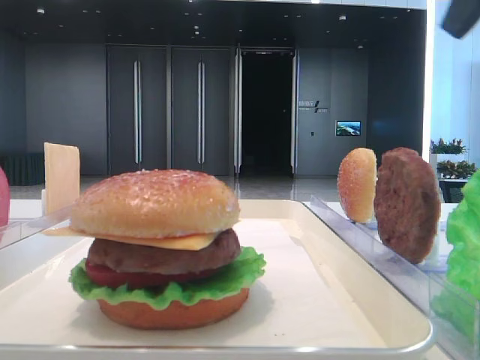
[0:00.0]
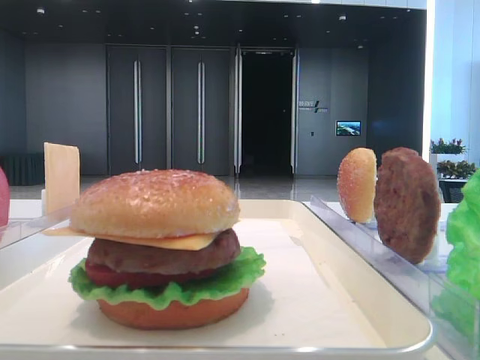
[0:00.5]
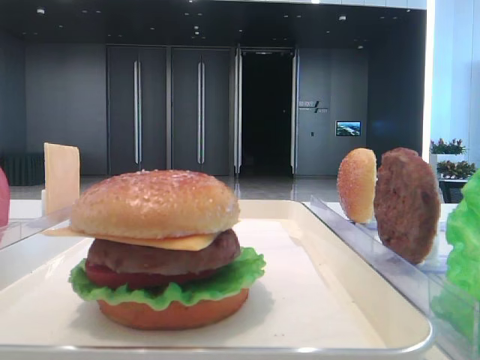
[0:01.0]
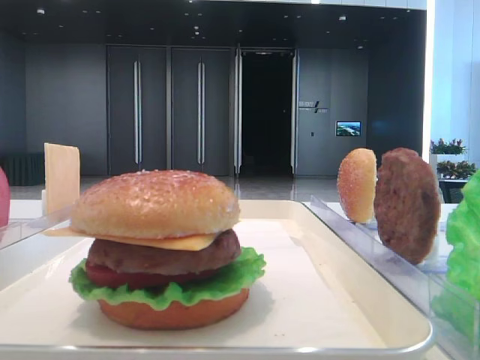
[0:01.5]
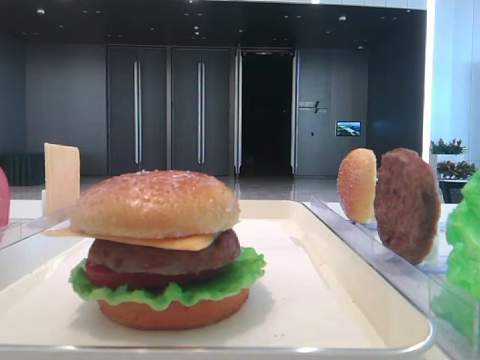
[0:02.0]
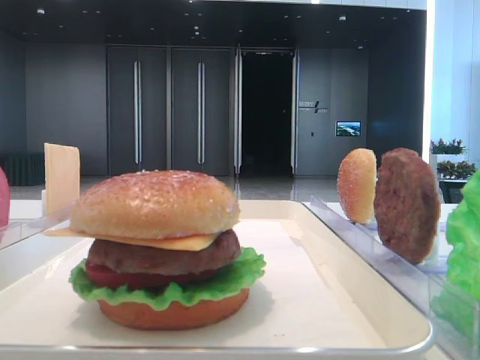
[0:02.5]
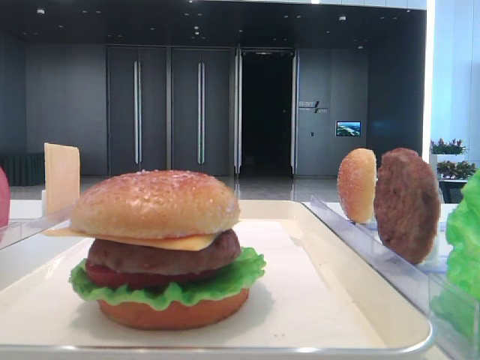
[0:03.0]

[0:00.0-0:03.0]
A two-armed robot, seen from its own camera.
0:00.0 to 0:01.5: The right gripper moves backward, about 20 cm.

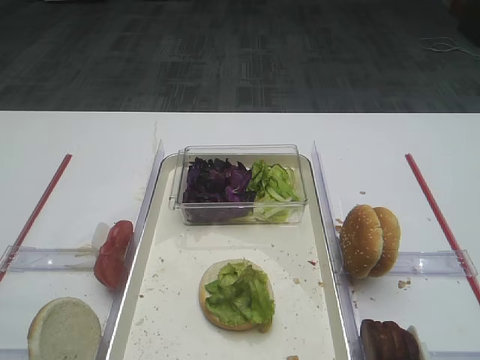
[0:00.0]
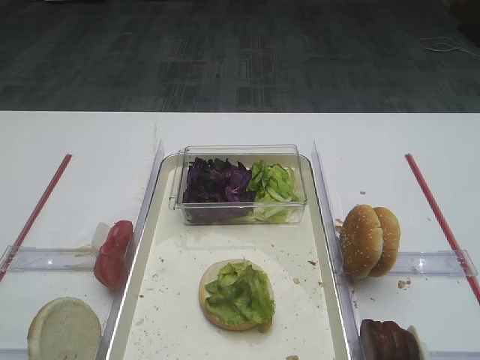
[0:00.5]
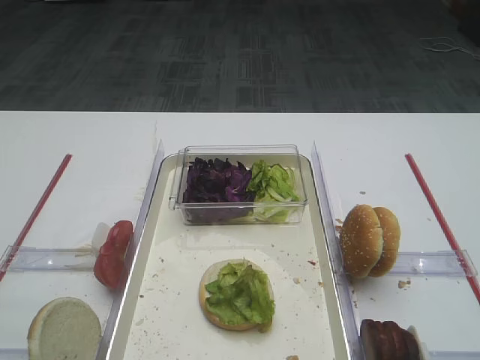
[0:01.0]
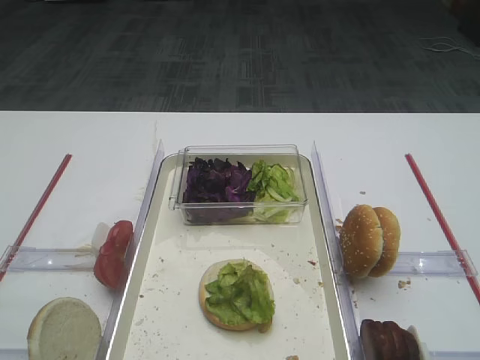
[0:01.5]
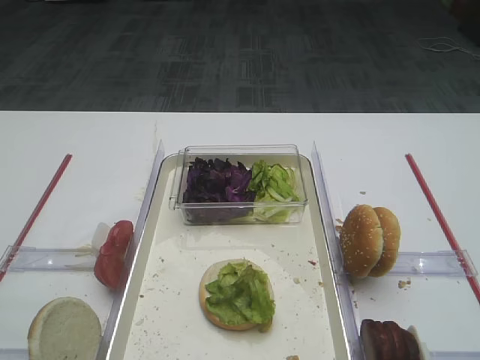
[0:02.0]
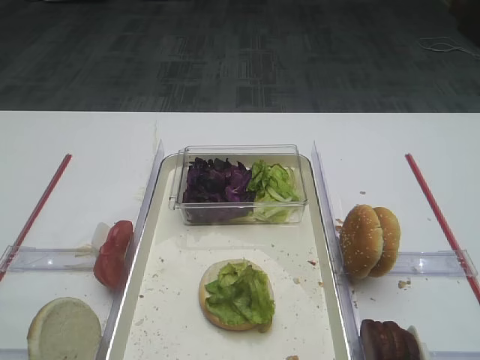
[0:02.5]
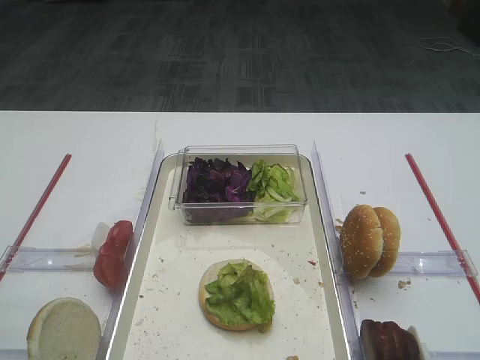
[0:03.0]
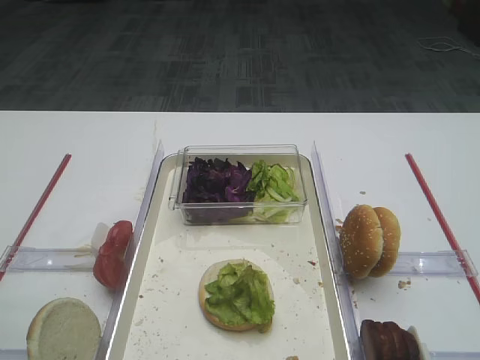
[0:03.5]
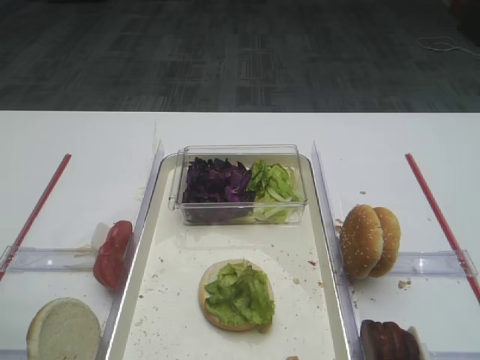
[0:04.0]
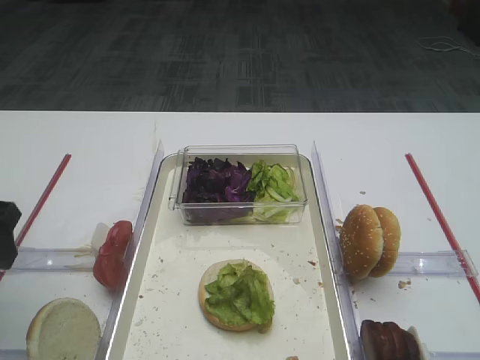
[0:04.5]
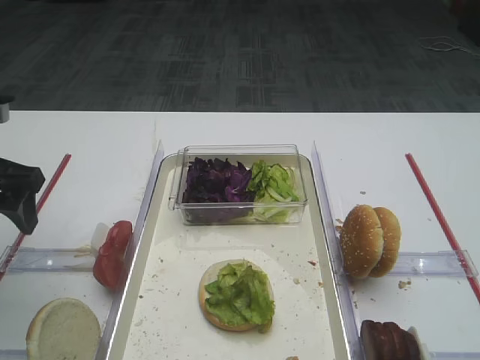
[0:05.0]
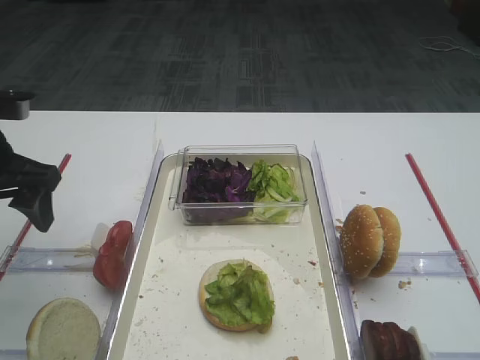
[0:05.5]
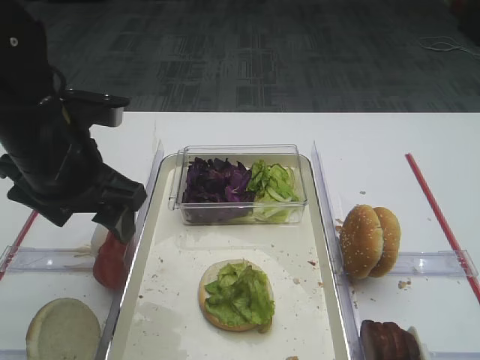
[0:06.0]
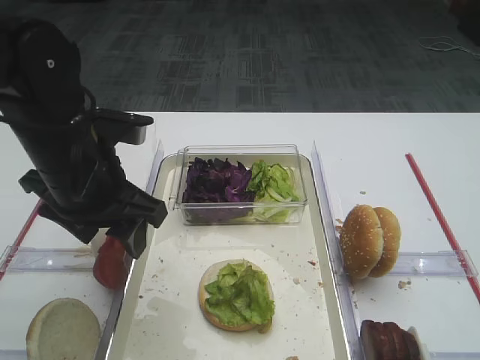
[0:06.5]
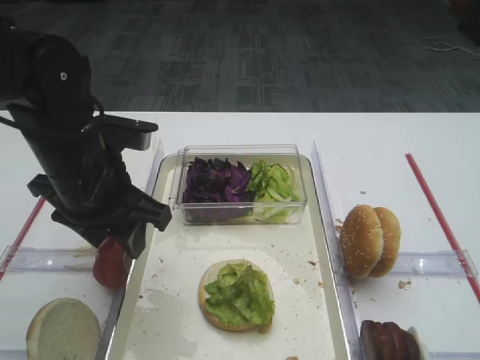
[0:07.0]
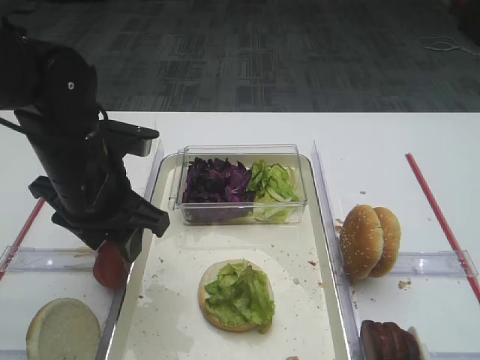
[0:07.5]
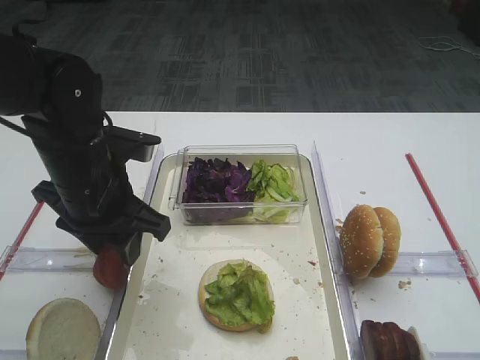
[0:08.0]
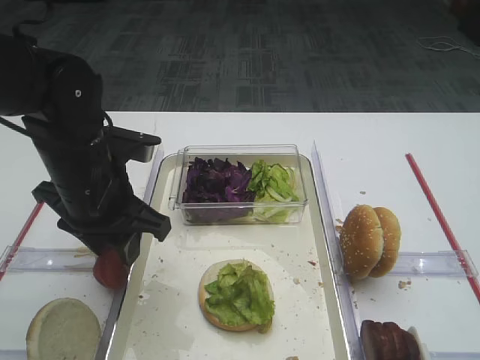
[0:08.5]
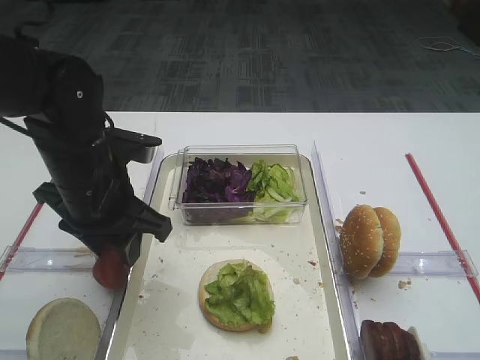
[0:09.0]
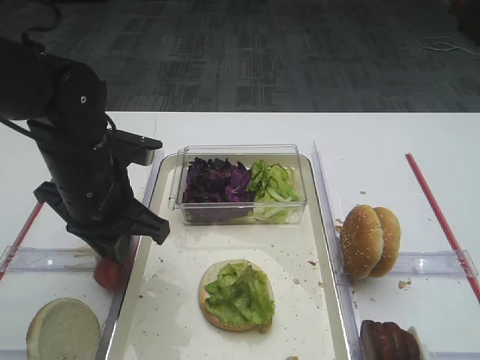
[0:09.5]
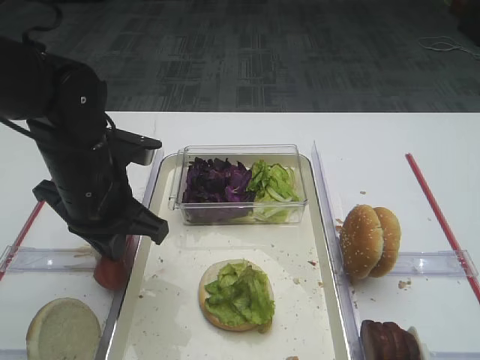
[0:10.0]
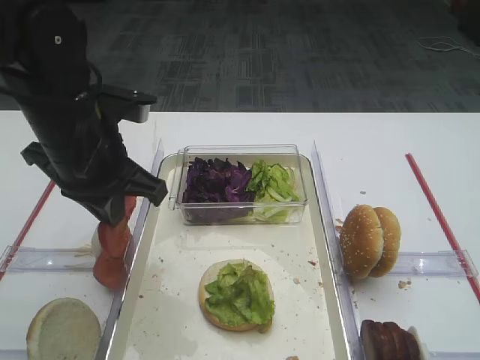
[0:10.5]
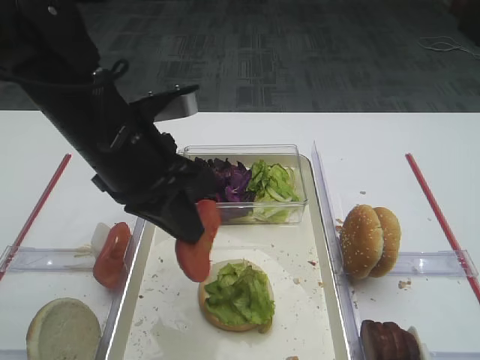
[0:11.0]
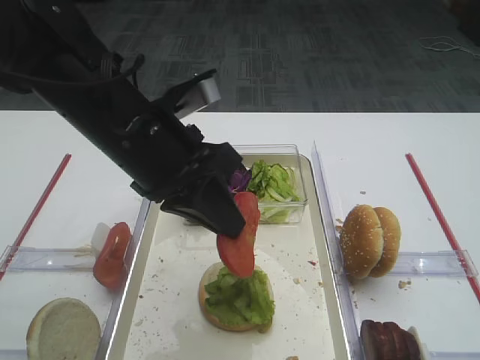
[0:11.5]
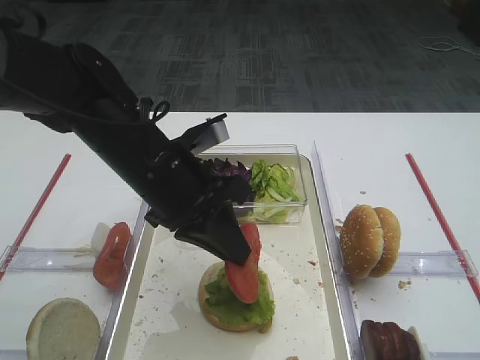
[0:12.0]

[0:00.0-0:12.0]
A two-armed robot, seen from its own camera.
Step, 0:00.0 to 0:10.5: Pick up the tomato slice with the left gripper.
0:04.0 to 0:06.0: The left gripper travels forward and to the right by about 20 cm.
0:06.0 to 0:08.0: The left gripper moves about 5 cm, and closes up.
0:08.0 to 0:10.0: The left gripper closes up.
0:10.0 to 0:12.0: The left gripper moves to the right, approximately 5 cm.

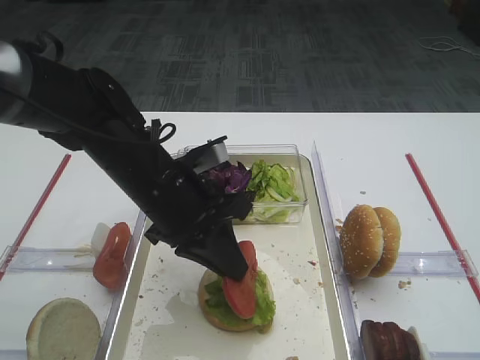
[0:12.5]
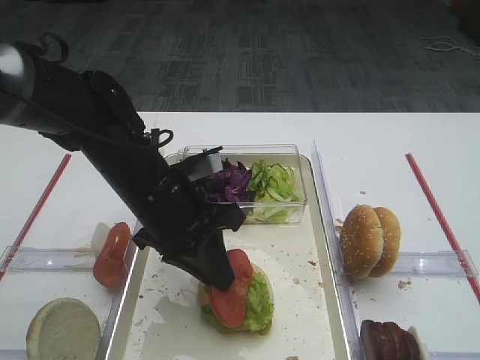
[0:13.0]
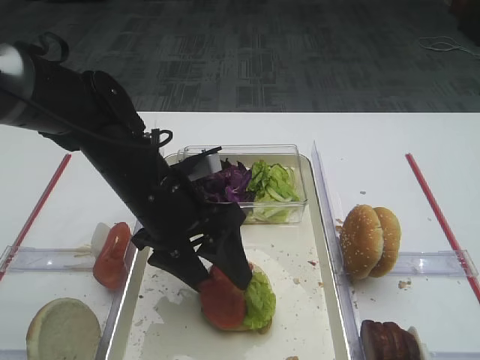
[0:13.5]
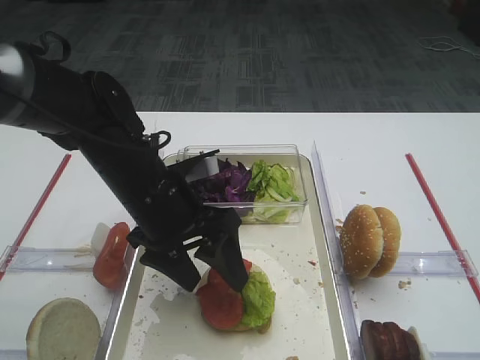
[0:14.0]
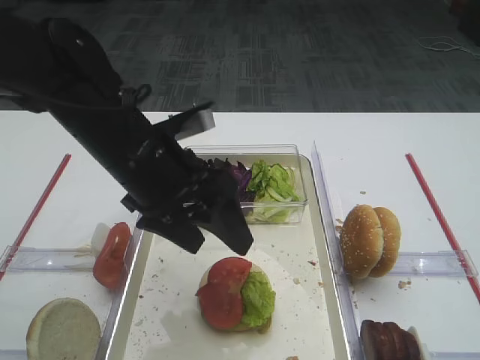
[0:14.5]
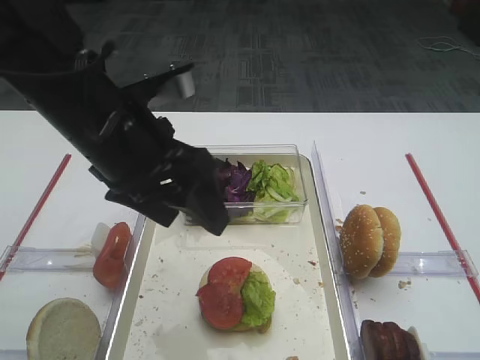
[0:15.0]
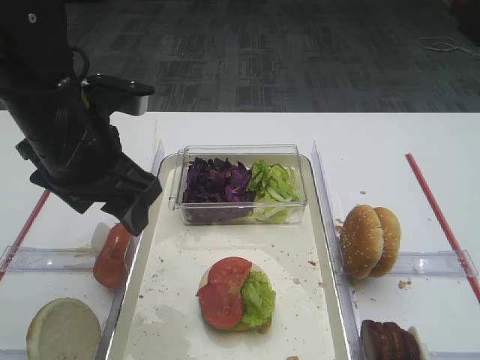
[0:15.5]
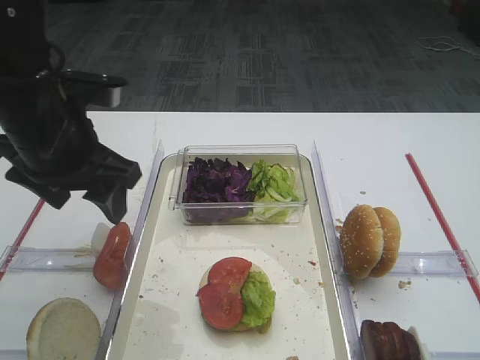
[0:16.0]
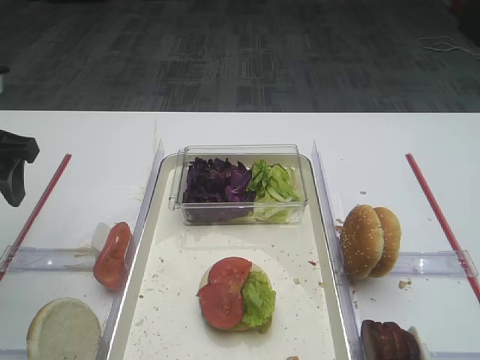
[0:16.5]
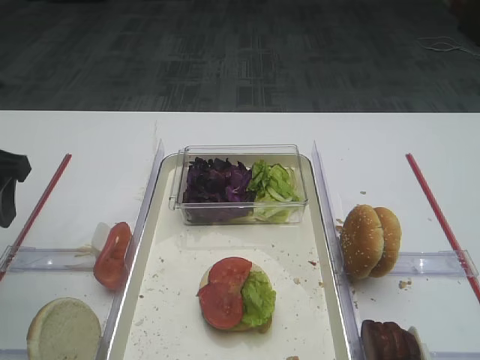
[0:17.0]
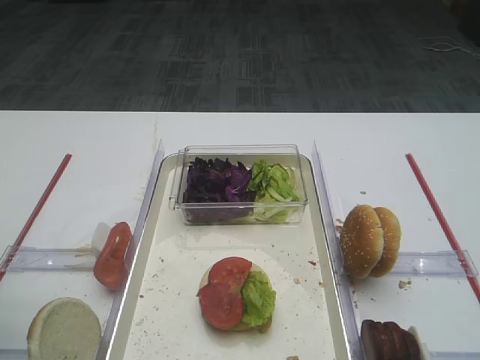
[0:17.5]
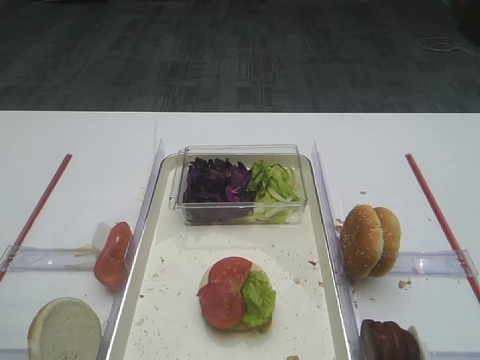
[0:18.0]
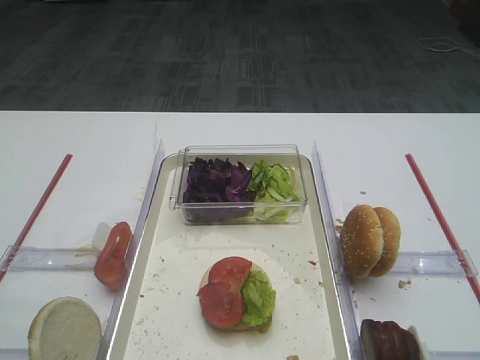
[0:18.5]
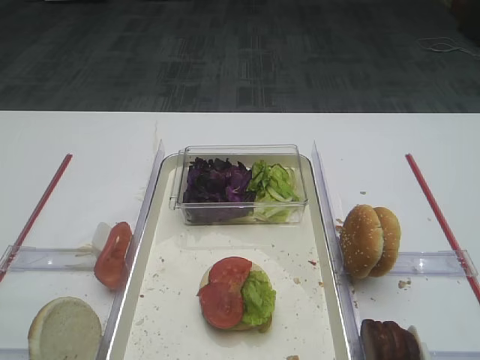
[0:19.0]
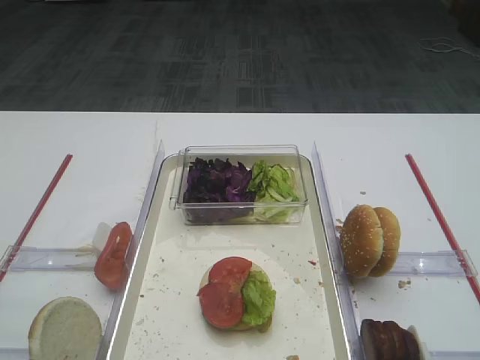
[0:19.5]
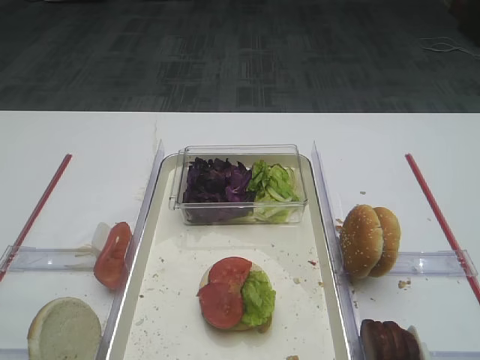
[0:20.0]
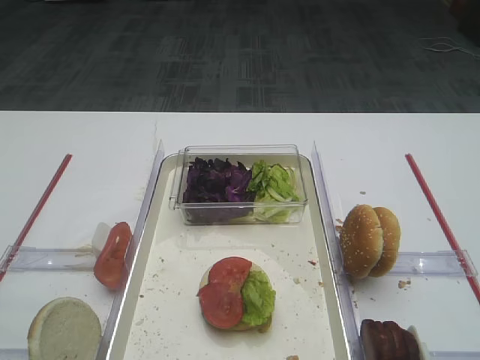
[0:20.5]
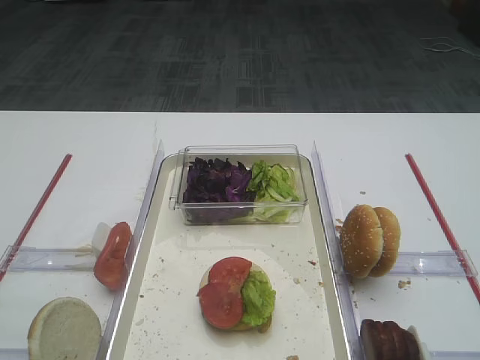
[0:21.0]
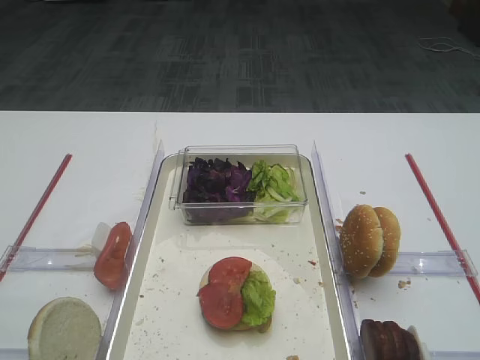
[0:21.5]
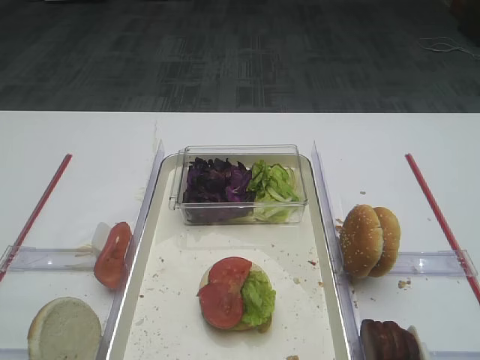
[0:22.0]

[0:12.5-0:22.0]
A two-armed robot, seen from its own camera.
0:12.5 to 0:14.5: The left gripper is displaced upward by approximately 5 cm, and opens.
0:14.5 to 0:16.5: The left gripper shifts about 20 cm to the left.
0:16.5 to 0:18.0: The left gripper goes about 20 cm backward.
0:20.0 to 0:22.0: Neither gripper changes place.

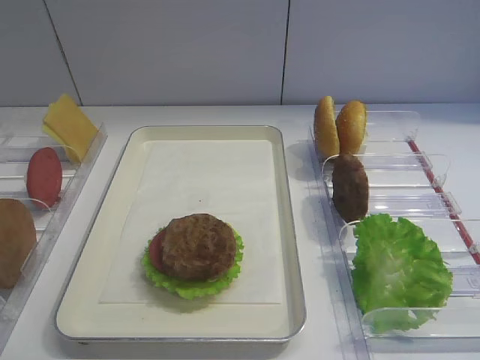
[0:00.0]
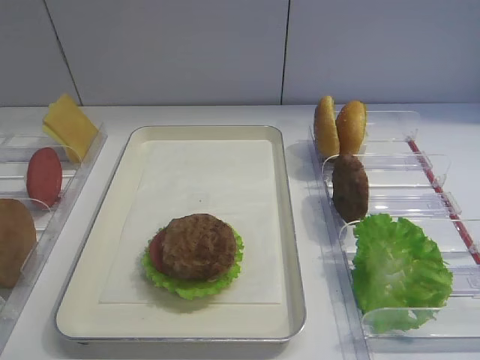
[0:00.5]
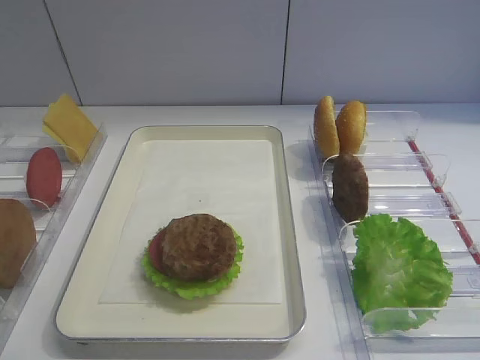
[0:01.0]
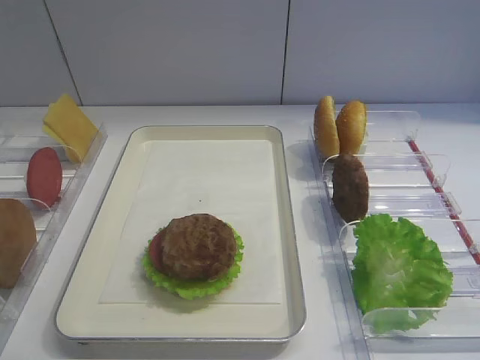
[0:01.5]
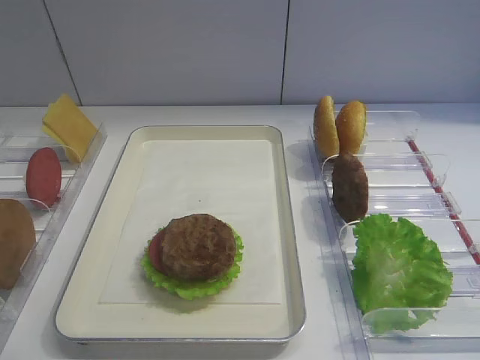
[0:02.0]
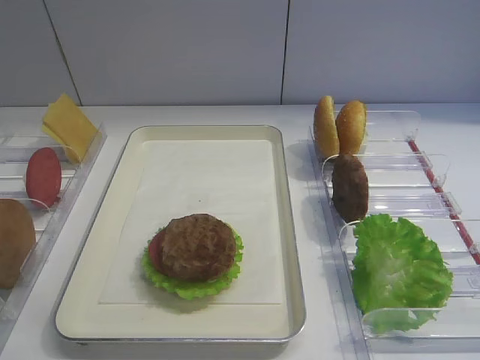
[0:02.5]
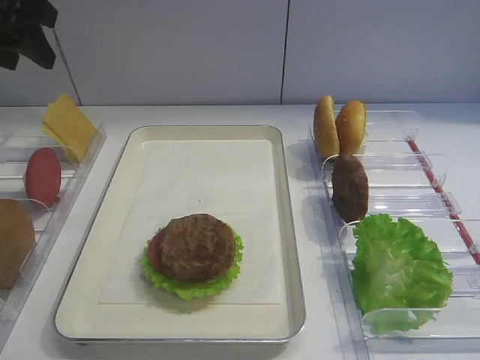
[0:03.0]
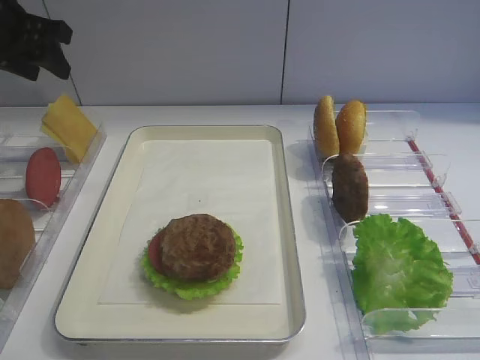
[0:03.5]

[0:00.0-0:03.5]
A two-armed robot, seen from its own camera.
0:02.0 to 0:03.5: The left gripper moves forward, approximately 30 cm.
